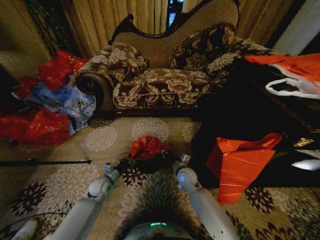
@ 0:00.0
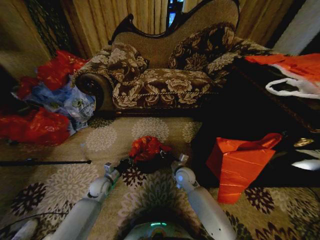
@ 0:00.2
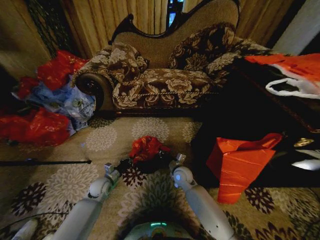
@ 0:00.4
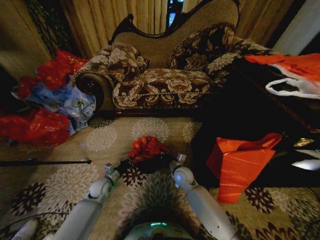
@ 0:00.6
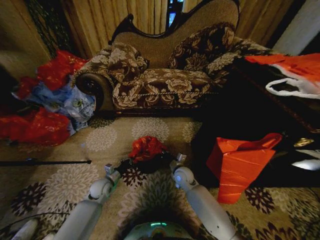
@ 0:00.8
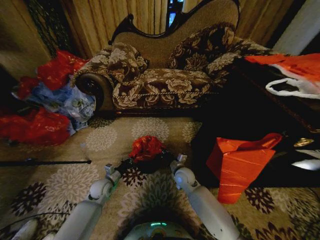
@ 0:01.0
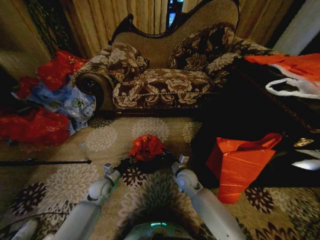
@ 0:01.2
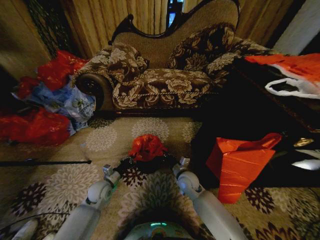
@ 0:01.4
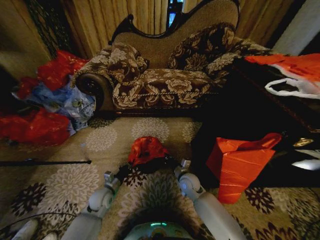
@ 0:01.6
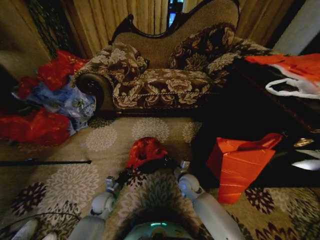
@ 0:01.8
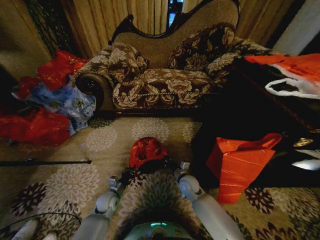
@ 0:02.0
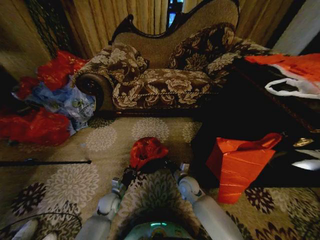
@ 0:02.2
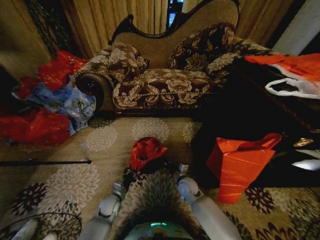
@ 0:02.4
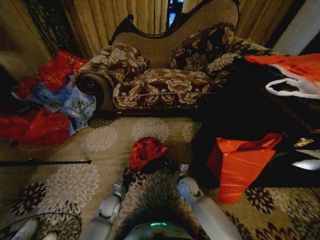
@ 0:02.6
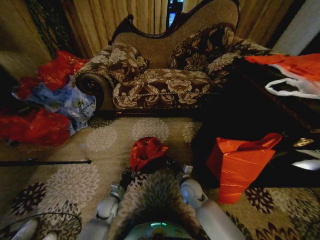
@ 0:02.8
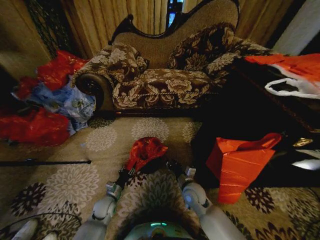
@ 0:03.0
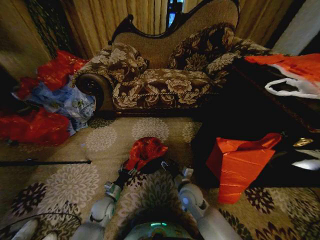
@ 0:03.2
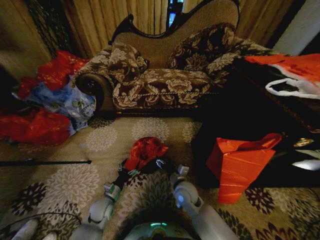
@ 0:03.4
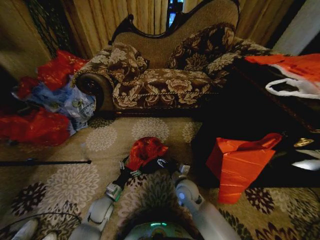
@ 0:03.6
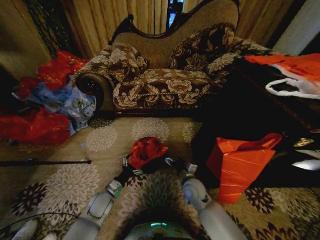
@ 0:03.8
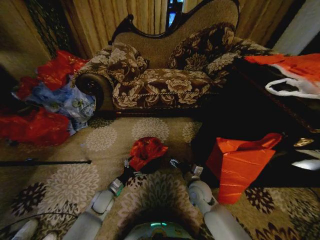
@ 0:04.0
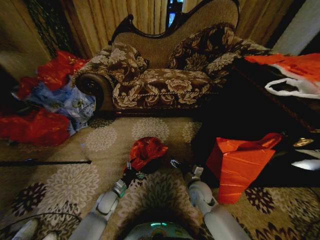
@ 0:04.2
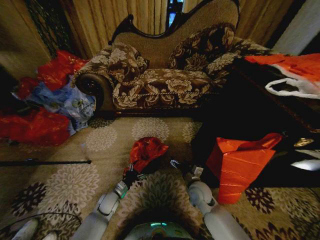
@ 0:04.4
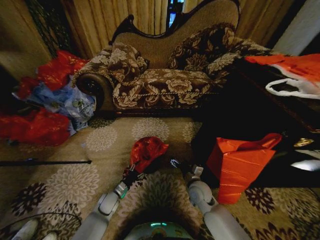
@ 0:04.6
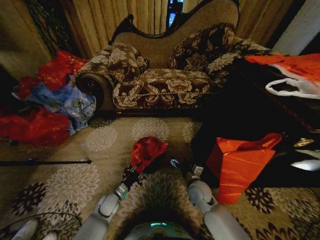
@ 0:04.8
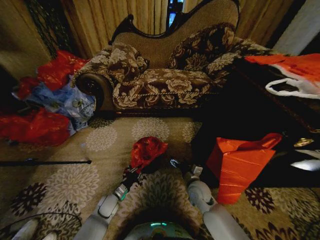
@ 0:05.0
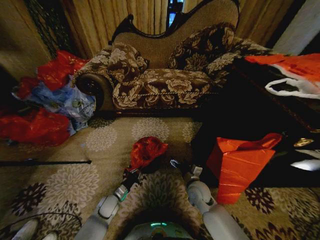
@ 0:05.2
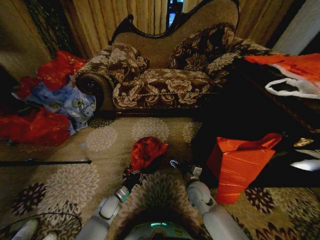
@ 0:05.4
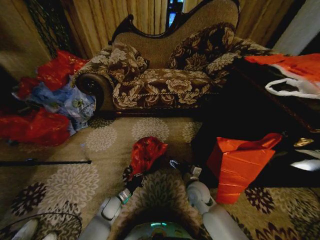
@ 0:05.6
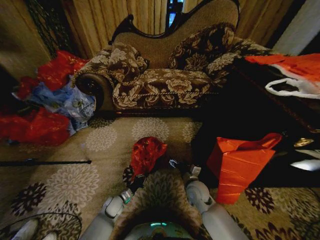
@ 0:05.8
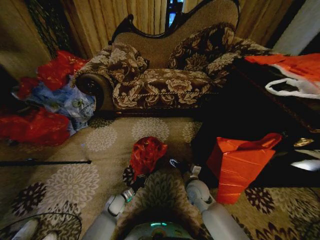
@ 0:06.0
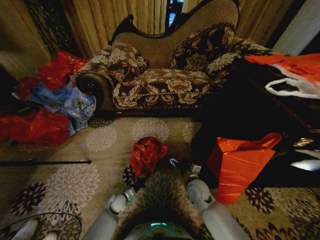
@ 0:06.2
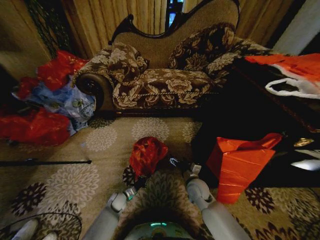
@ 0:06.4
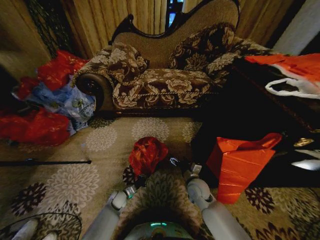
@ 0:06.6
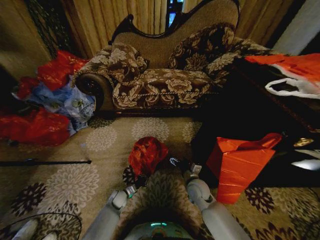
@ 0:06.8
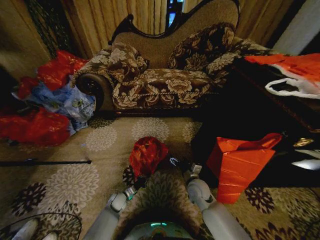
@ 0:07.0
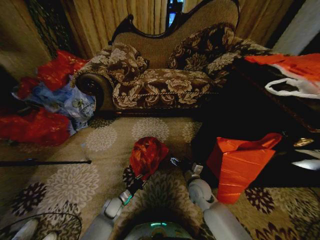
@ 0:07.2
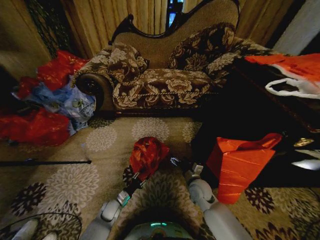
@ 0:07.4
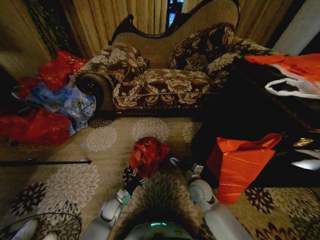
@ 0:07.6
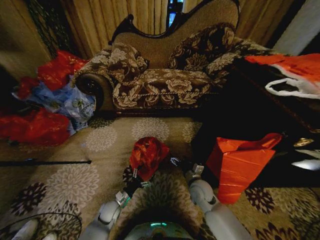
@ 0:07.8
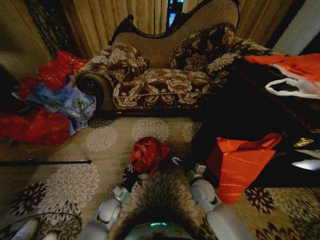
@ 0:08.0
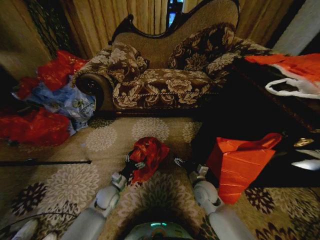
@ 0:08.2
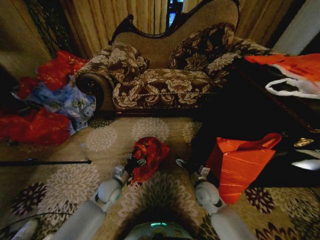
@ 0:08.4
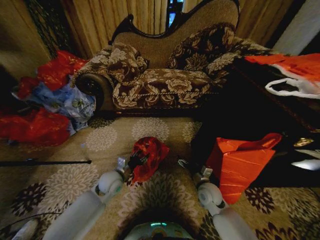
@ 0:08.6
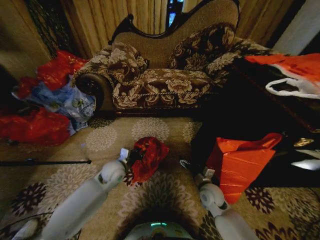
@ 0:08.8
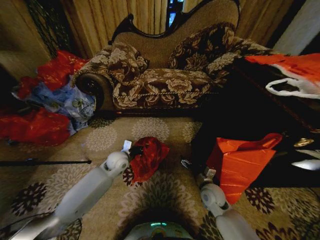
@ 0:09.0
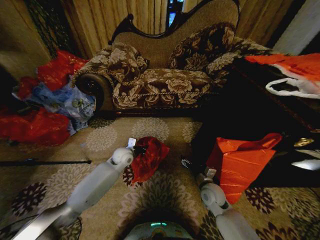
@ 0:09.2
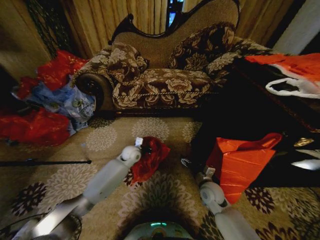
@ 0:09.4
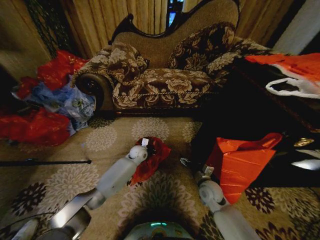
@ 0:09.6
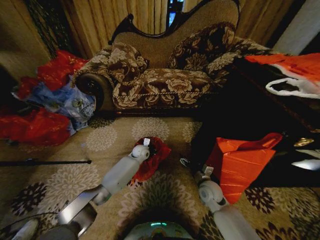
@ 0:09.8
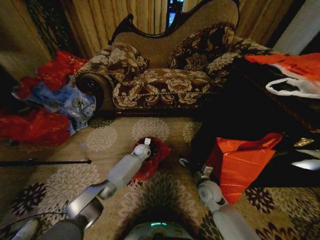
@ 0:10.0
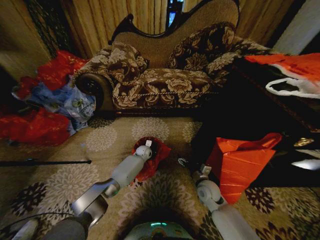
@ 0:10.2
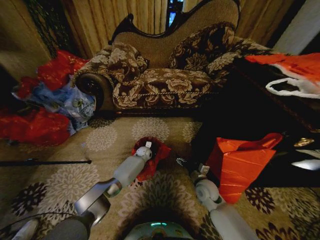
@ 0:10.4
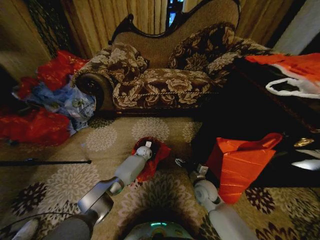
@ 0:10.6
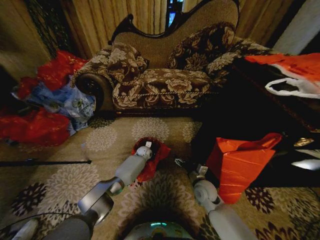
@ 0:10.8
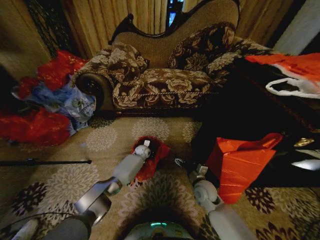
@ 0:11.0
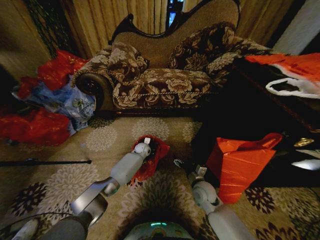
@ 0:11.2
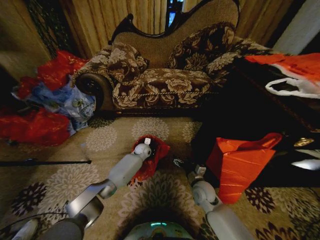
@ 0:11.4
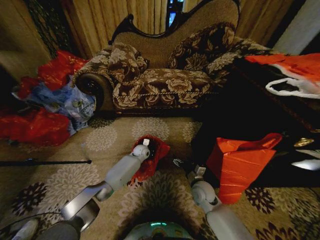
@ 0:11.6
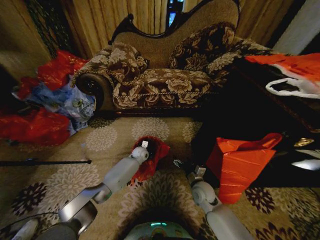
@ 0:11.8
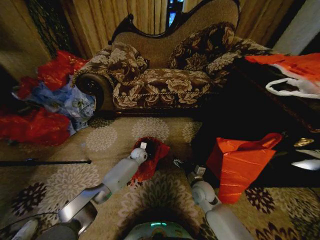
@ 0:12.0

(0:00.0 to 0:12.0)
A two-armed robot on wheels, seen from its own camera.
Task of the whole recording: Place a garbage bag over the trash bin.
0:00.0 - 0:01.6: The left gripper shifts about 5 cm backward, and closes up, while the right gripper closes its fingers.
0:01.6 - 0:03.0: The left gripper heads downward, covering roughly 5 cm, and opens its fingers. Meanwhile the right gripper goes approximately 5 cm backward, and opens its fingers.
0:03.0 - 0:04.4: The right gripper opens. Meanwhile the left gripper opens up.
0:04.4 - 0:06.0: The left gripper travels downward by approximately 5 cm, and closes up.
0:06.0 - 0:07.6: The left gripper opens up.
0:07.6 - 0:09.0: The right gripper goes roughly 5 cm to the right. Meanwhile the left gripper goes some 25 cm upward and forward, and closes its fingers.
0:09.0 - 0:10.4: The left gripper is displaced forward, downward and to the right by about 25 cm.
0:10.4 - 0:12.0: The grippers make only small movements.

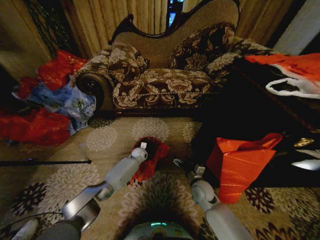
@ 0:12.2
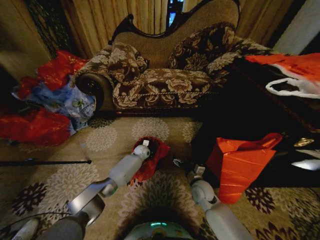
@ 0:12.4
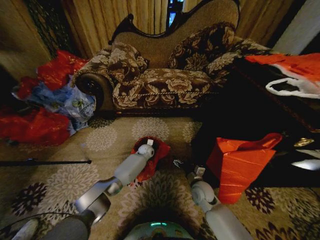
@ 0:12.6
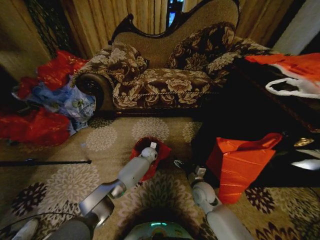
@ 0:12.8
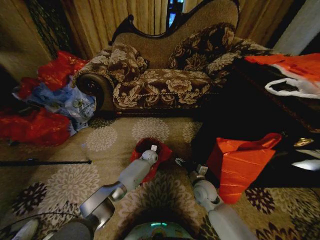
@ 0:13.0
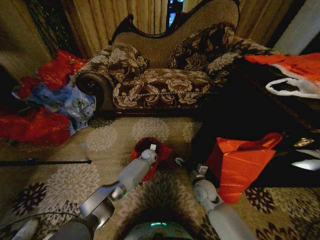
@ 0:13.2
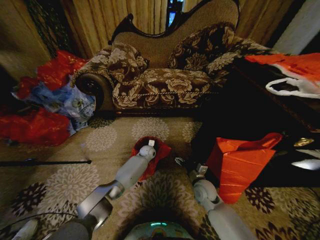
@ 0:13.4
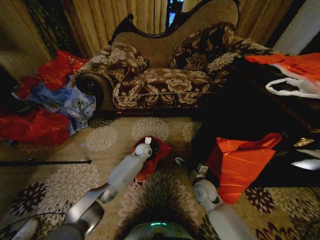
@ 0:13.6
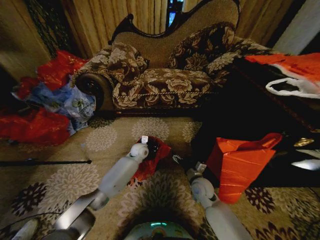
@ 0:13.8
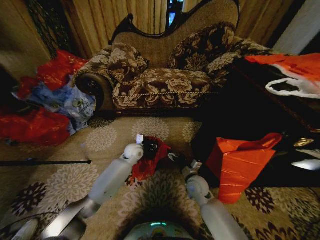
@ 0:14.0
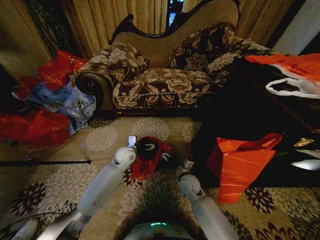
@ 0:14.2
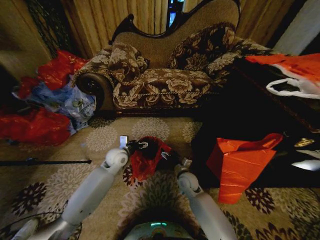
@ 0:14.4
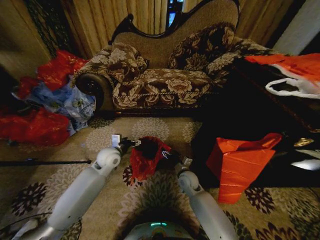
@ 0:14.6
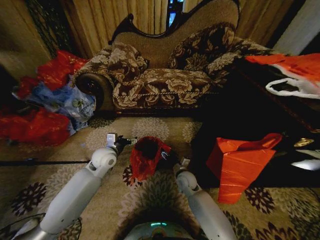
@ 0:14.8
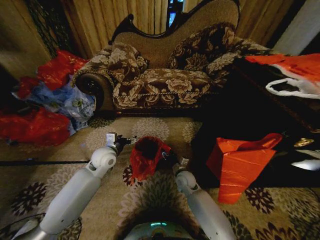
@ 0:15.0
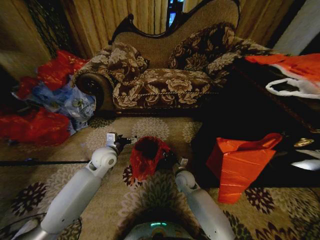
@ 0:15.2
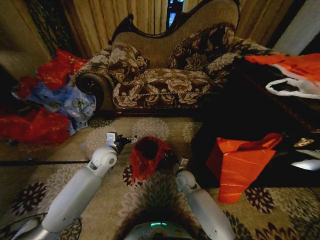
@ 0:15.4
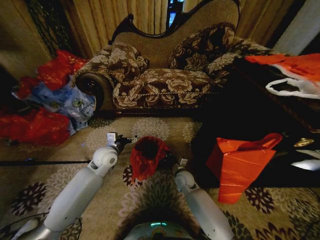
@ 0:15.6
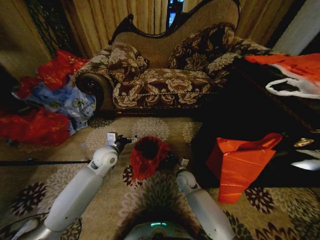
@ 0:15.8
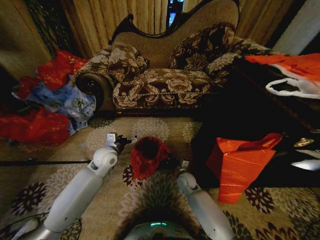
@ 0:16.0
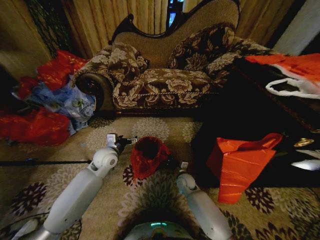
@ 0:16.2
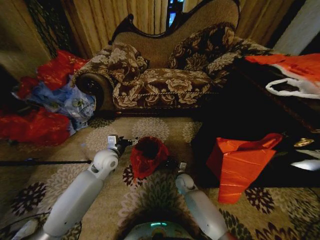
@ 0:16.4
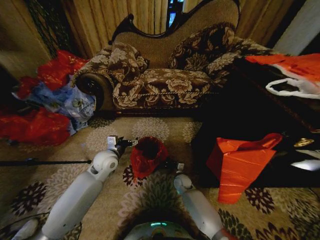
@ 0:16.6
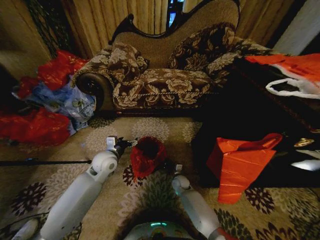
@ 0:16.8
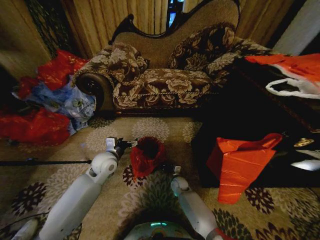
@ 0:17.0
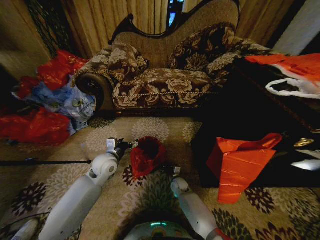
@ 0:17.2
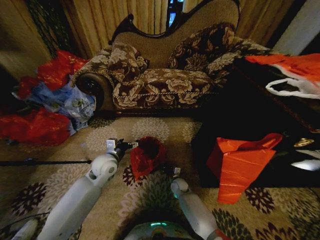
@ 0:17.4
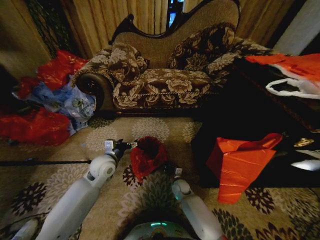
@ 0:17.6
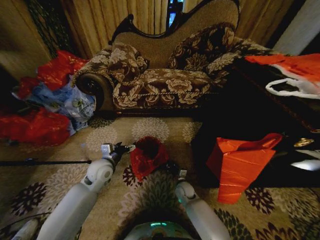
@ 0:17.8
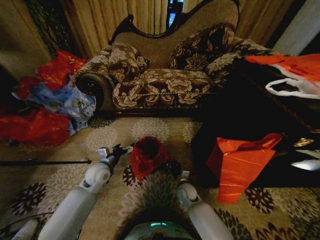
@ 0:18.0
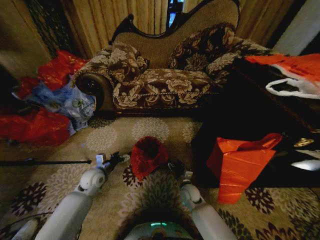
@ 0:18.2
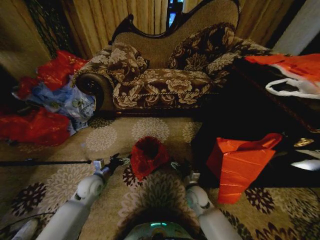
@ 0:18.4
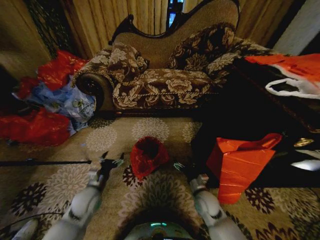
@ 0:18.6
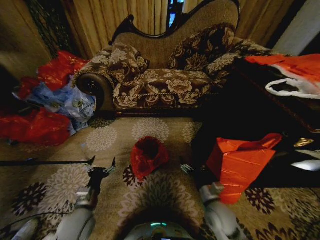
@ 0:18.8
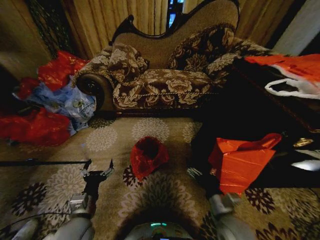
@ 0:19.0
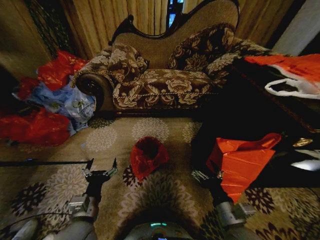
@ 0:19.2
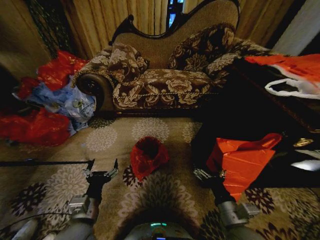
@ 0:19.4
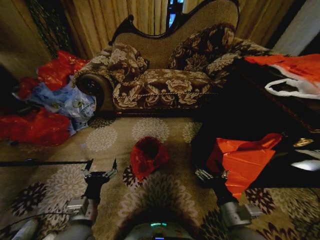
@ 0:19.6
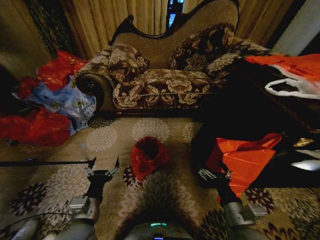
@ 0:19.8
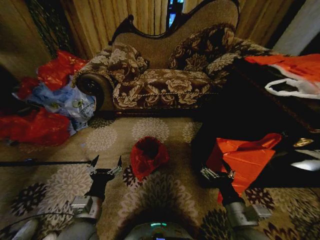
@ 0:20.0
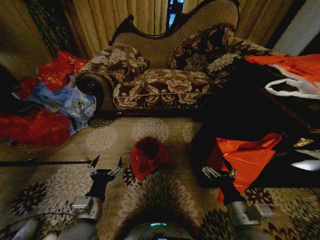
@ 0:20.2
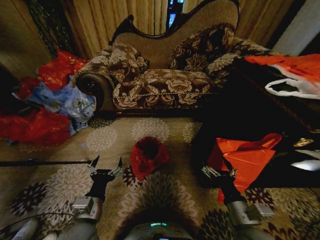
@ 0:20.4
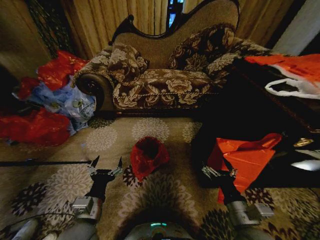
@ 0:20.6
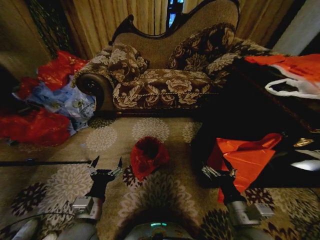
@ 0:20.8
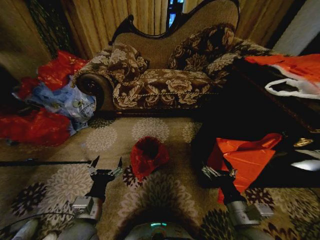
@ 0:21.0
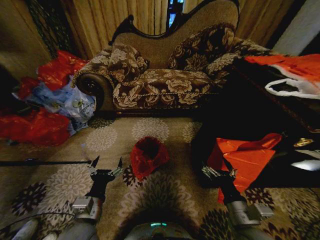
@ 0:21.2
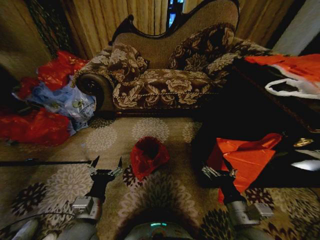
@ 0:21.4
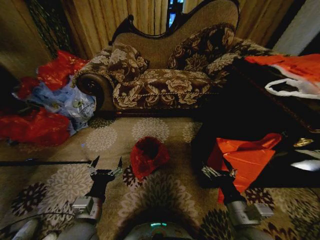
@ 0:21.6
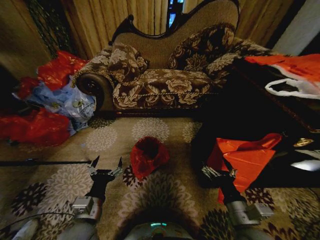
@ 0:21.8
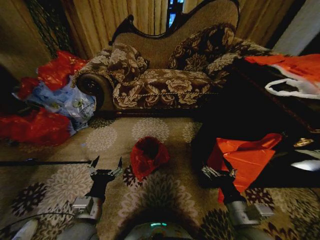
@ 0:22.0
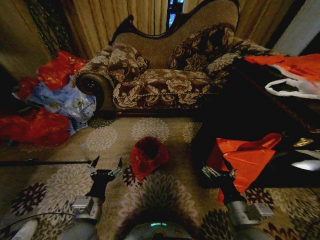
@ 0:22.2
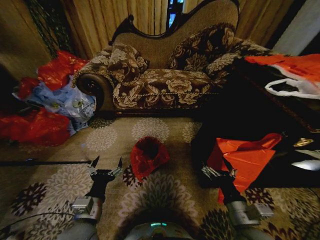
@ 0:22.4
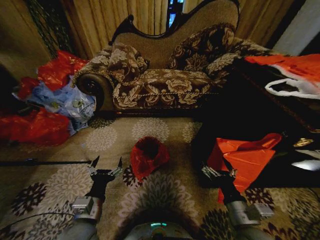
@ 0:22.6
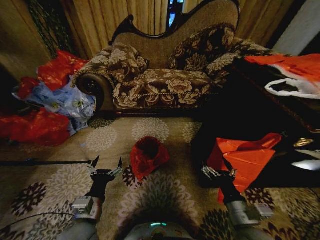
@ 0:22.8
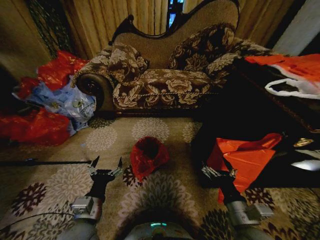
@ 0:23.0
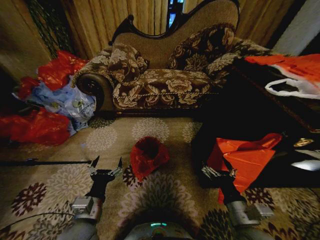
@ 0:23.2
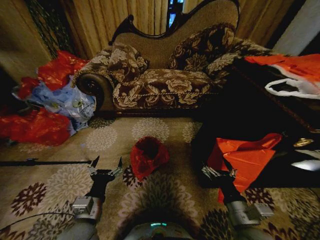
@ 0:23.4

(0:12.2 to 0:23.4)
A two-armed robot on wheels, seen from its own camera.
Task of the whole recording: Place a garbage bag over the trash bin.
0:12.2 - 0:13.8: The left gripper goes about 10 cm upward, and opens up.
0:13.8 - 0:15.4: The left gripper shifts about 20 cm to the left, backward and upward, and opens up. The right gripper shifts about 10 cm to the left and forward, and closes its fingers.
0:15.4 - 0:17.0: The right gripper is displaced downward by about 10 cm.
0:17.0 - 0:18.6: The left gripper is displaced backward, downward and to the left by approximately 15 cm, while the right gripper goes some 20 cm backward, upward and to the right, and opens its fingers.
0:18.6 - 0:20.2: The left gripper travels backward, upward and to the right by roughly 15 cm; the right gripper is displaced backward and upward by some 20 cm.
0:20.2 - 0:23.4: Both grippers stay about where they are.
